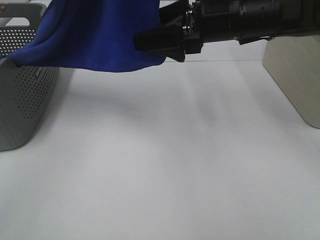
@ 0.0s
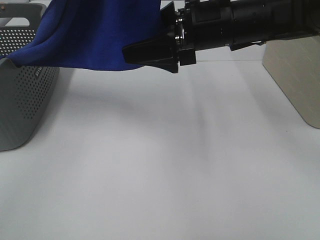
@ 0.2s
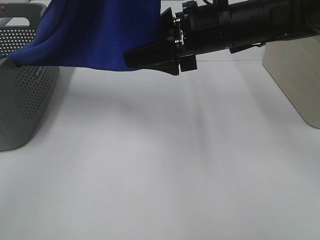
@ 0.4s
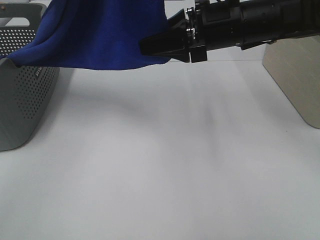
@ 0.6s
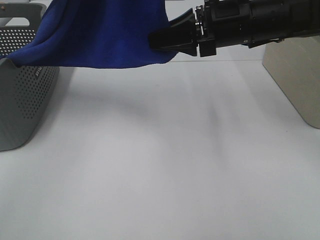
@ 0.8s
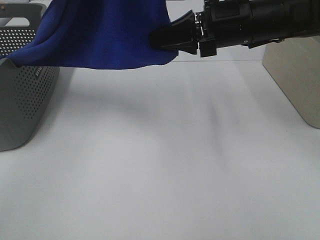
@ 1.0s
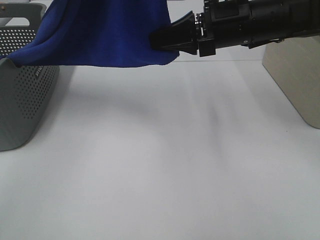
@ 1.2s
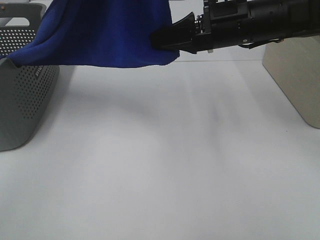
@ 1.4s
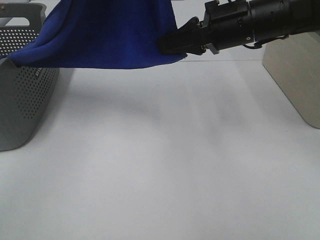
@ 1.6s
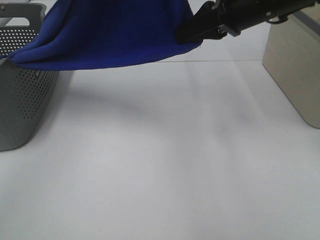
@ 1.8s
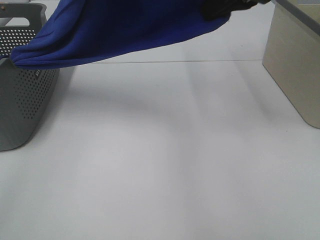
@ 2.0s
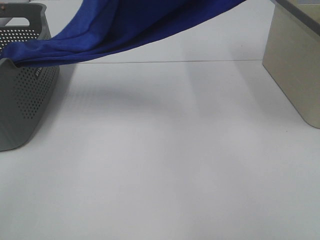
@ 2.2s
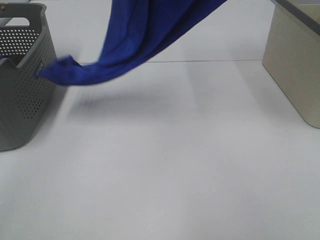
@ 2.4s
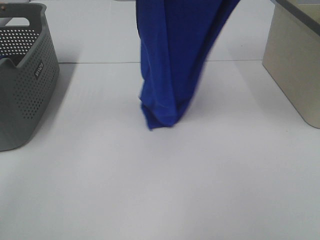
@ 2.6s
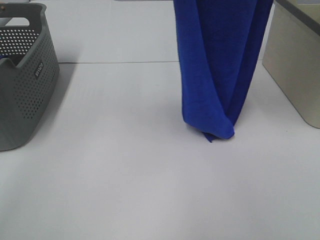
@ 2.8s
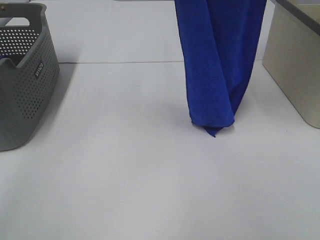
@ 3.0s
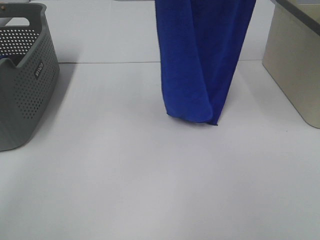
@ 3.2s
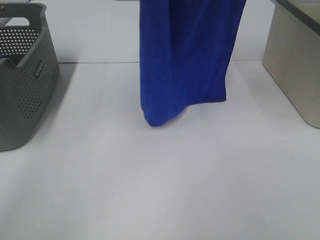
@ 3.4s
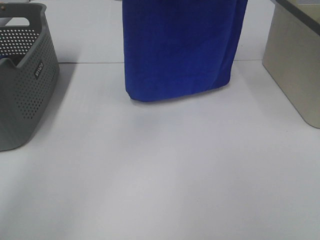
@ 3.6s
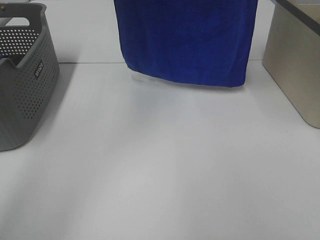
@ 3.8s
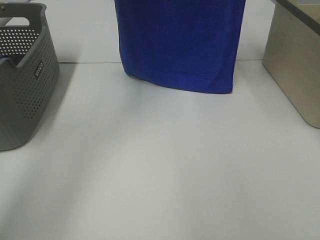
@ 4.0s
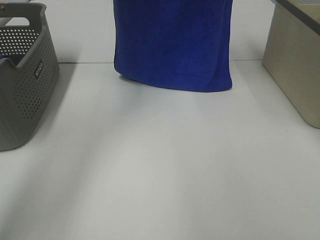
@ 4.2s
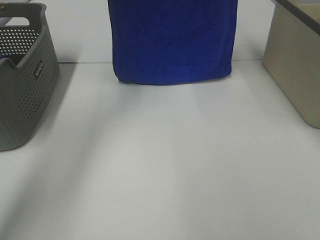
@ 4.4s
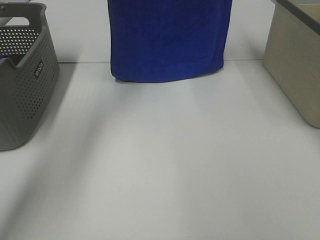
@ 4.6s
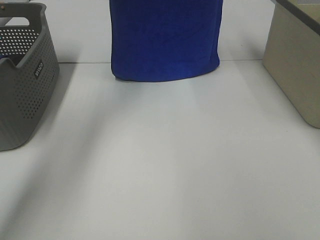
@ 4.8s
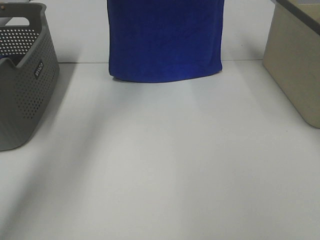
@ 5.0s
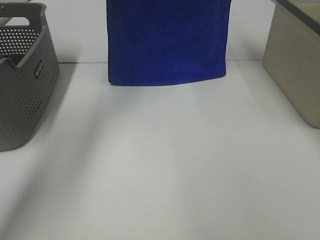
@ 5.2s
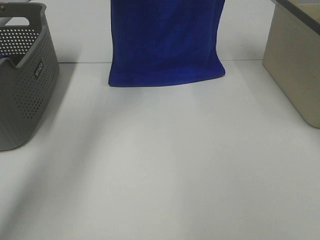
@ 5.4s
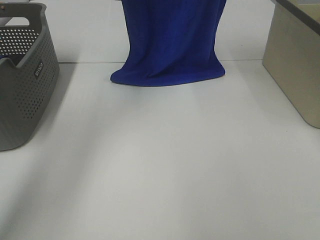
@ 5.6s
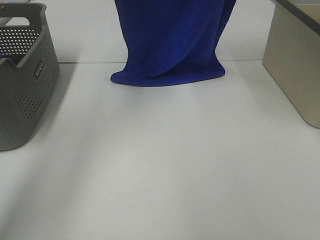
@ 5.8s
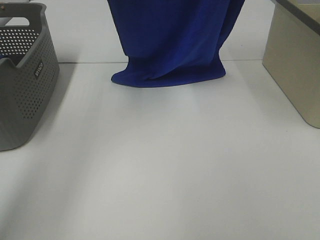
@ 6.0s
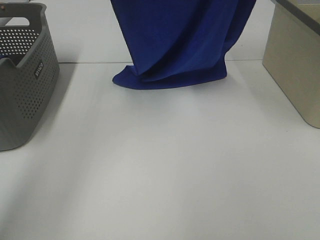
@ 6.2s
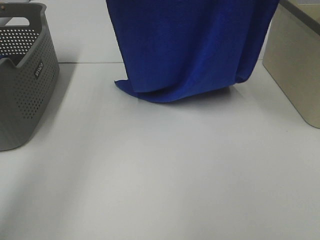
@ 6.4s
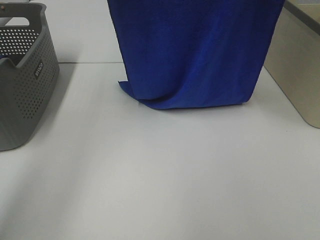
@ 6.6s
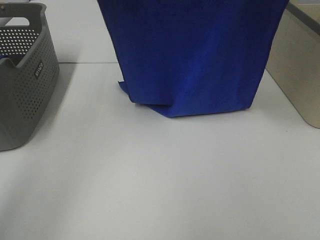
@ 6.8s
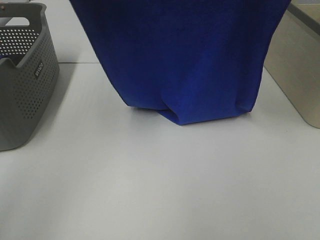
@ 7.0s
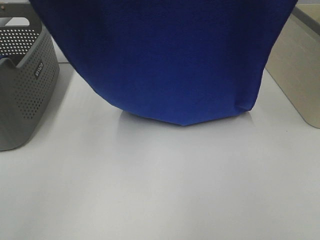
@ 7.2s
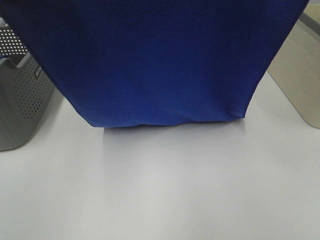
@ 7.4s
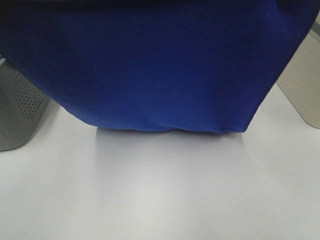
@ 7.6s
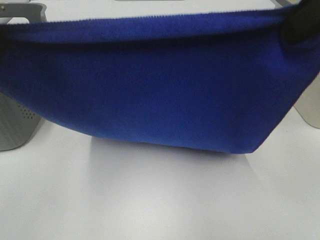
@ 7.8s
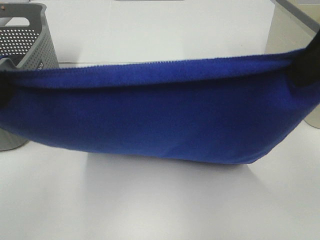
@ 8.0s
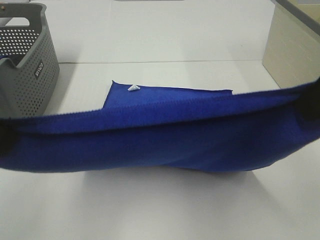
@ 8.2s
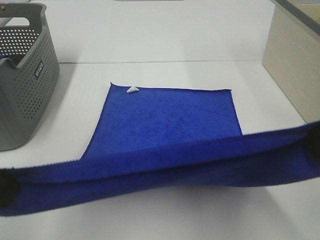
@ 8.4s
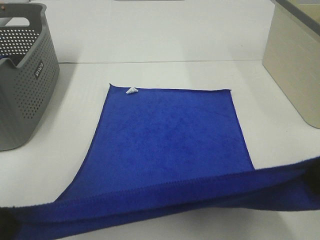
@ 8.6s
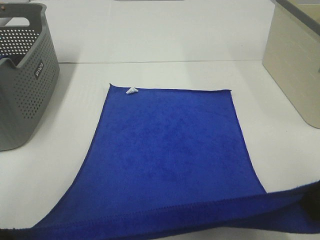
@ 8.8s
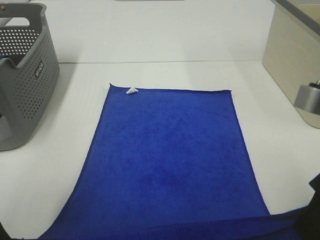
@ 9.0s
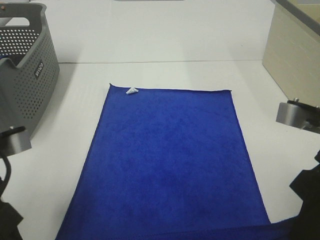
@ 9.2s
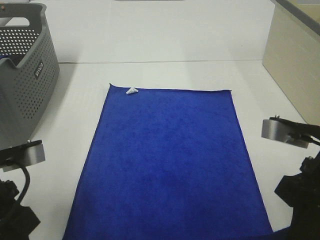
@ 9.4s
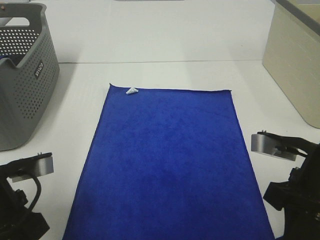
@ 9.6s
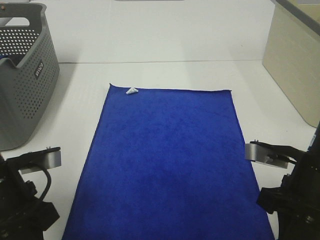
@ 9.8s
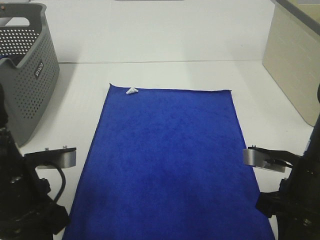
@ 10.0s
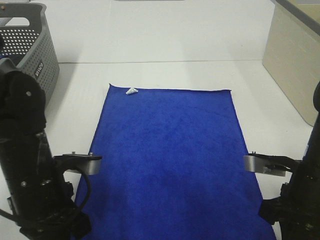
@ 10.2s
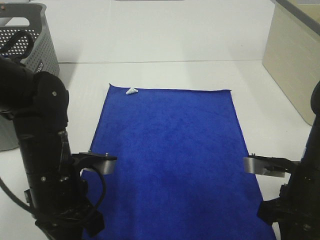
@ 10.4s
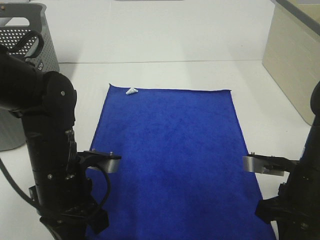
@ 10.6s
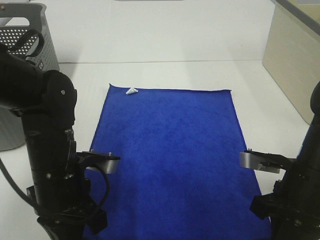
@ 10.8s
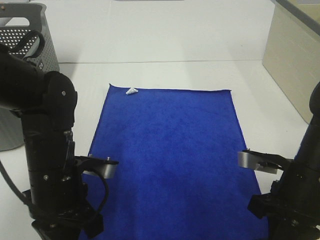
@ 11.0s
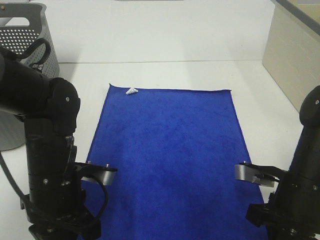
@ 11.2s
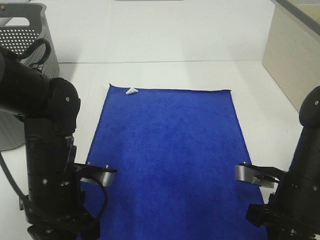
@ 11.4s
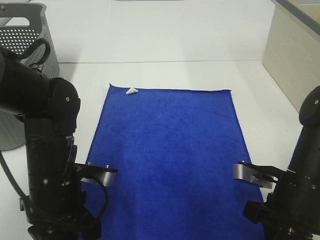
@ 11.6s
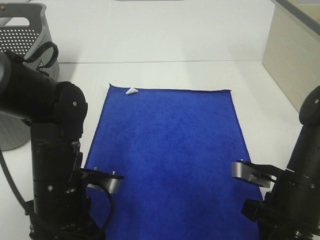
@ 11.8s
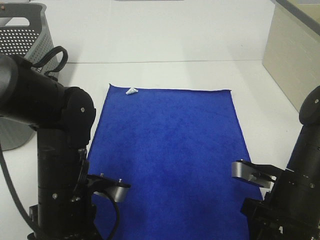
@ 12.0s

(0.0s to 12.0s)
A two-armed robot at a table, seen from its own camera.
Task of the whole recording: Remove the towel and place it.
Step, 0.8s - 7.6s: Left hand: spread the blue towel flat on the table.
Step, 0.8s - 7.6s: Right hand: spread the blue towel flat on the table.
0.0s - 1.6s: The right gripper closes its fingers.
1.6s - 3.0s: The left gripper shifts approximately 5 cm forward, while the right gripper shifts some 25 cm upward.
3.0s - 4.4s: The left gripper shifts about 15 cm forward and downward. The right gripper is displaced forward by approximately 10 cm.
4.4s - 6.0s: The grippers both shift backward by roughly 10 cm.
6.0s - 7.6s: The left gripper travels backward by roughly 20 cm, while the right gripper is displaced backward and downward by some 15 cm.
7.6s - 9.0s: Both grippers travel together downward and backward, approximately 20 cm.
9.0s - 10.4s: The right gripper moves downward, approximately 15 cm; the left gripper heads downward, forward and to the right, covering roughly 15 cm.
10.4s - 12.0s: The right gripper opens its fingers; the left gripper opens up.

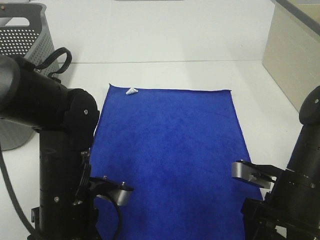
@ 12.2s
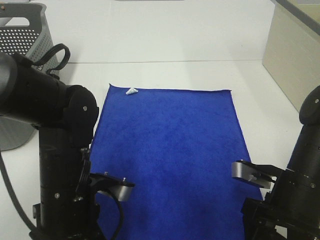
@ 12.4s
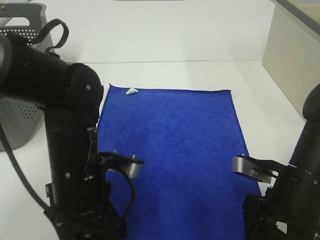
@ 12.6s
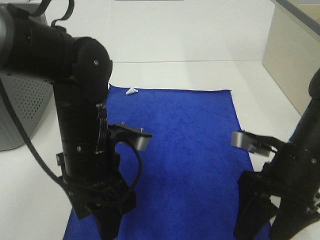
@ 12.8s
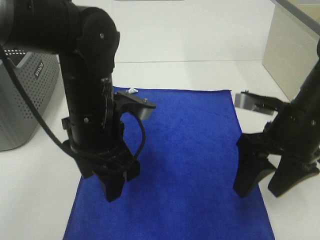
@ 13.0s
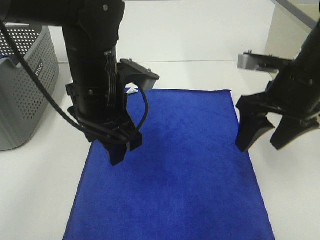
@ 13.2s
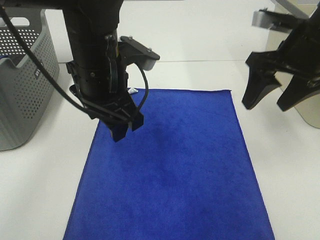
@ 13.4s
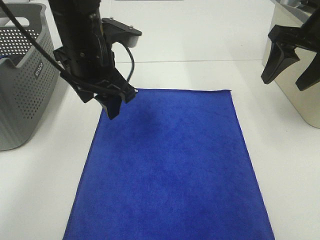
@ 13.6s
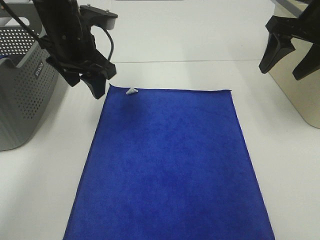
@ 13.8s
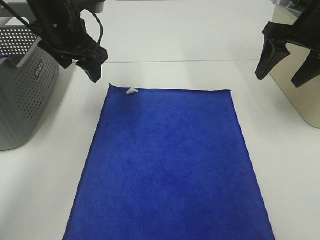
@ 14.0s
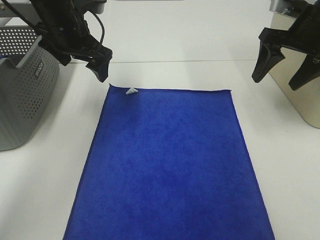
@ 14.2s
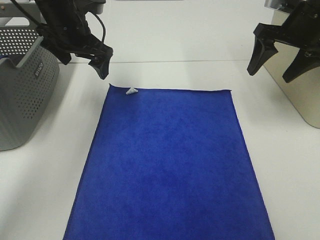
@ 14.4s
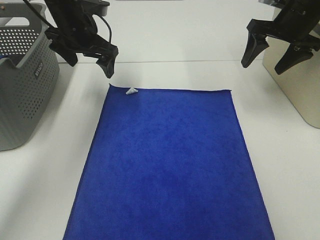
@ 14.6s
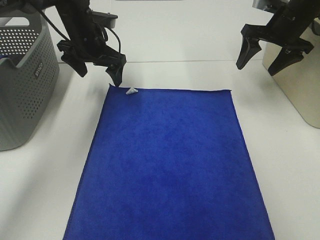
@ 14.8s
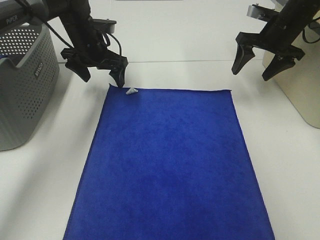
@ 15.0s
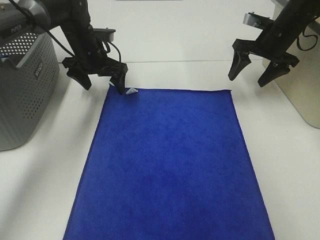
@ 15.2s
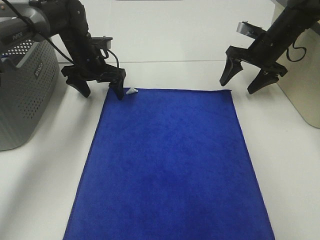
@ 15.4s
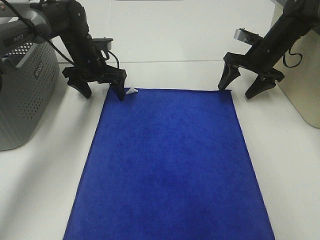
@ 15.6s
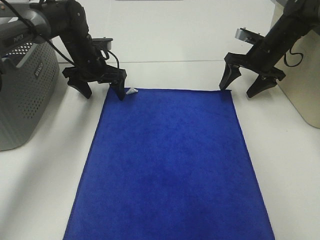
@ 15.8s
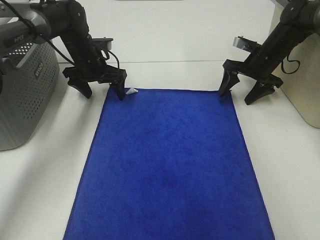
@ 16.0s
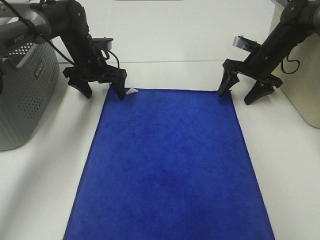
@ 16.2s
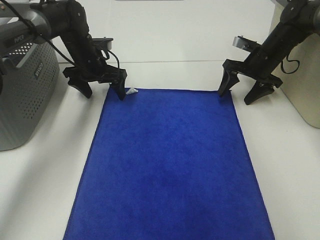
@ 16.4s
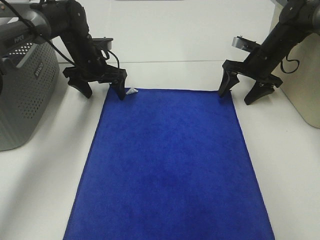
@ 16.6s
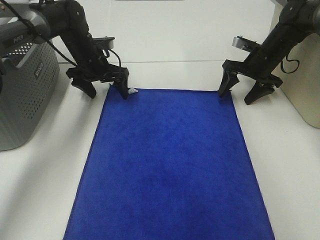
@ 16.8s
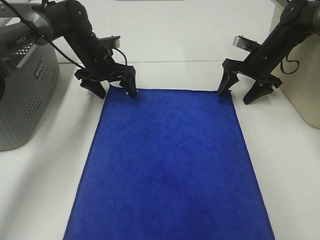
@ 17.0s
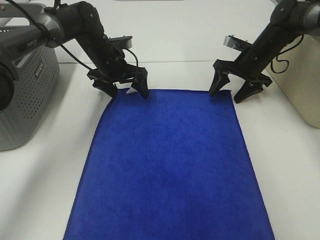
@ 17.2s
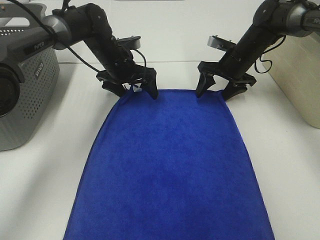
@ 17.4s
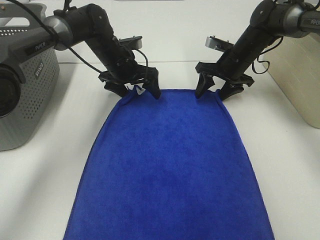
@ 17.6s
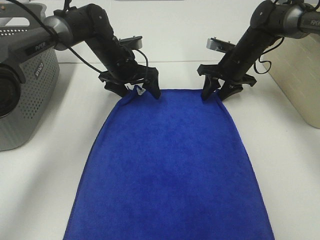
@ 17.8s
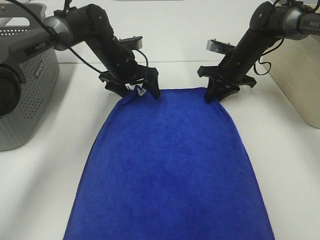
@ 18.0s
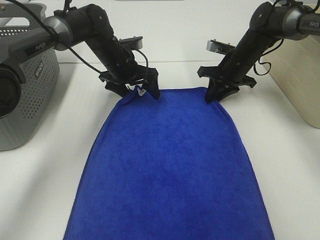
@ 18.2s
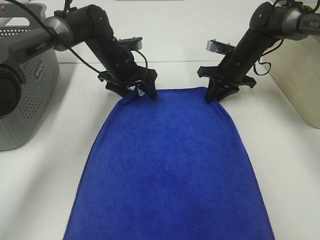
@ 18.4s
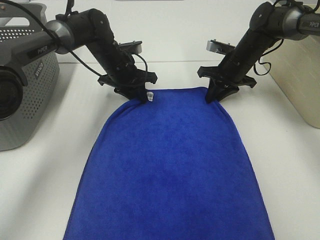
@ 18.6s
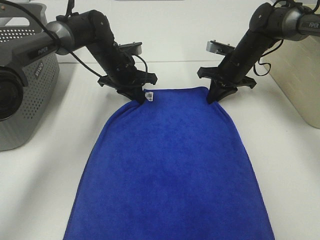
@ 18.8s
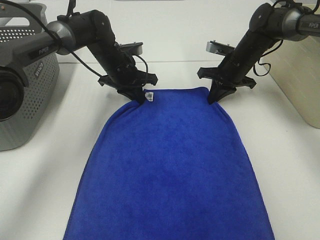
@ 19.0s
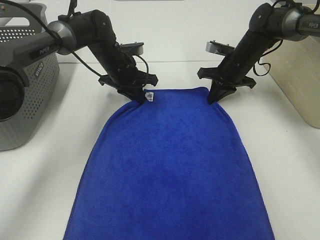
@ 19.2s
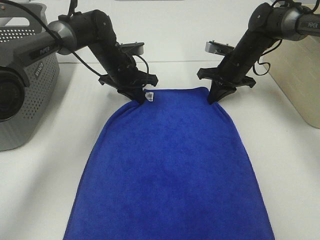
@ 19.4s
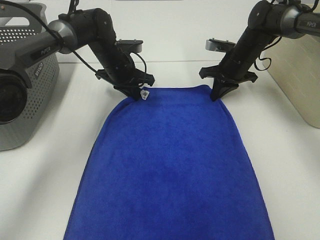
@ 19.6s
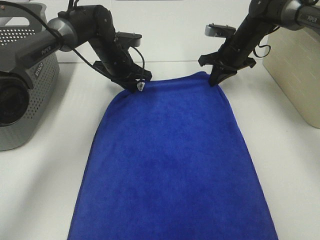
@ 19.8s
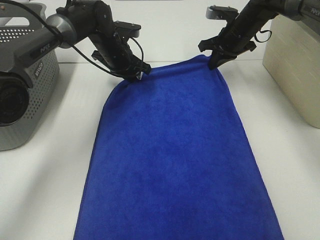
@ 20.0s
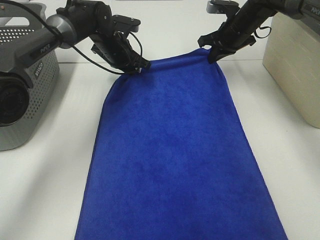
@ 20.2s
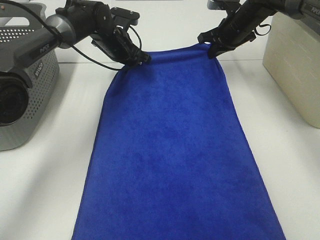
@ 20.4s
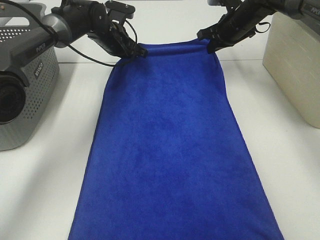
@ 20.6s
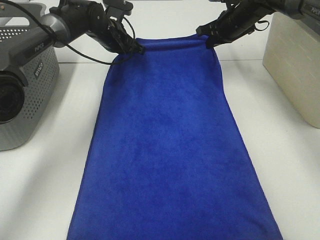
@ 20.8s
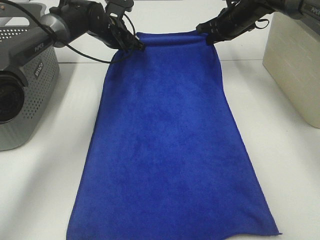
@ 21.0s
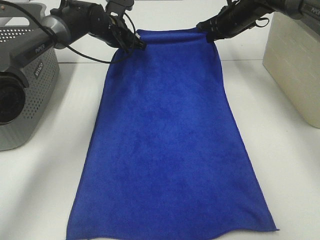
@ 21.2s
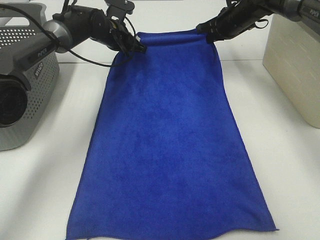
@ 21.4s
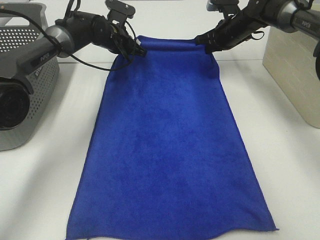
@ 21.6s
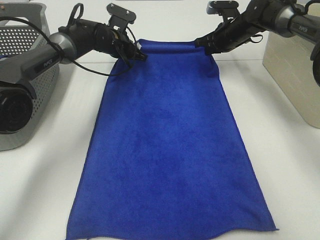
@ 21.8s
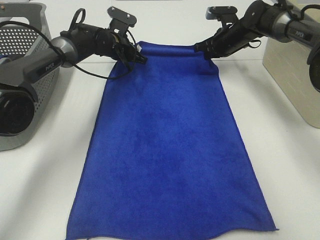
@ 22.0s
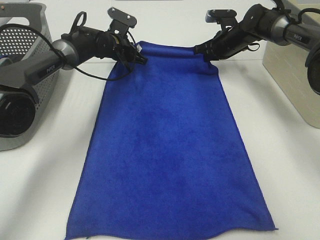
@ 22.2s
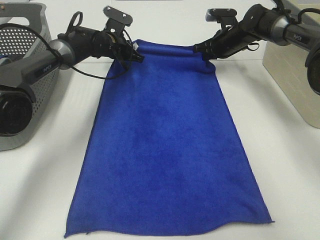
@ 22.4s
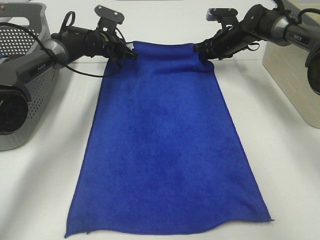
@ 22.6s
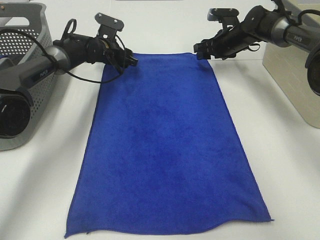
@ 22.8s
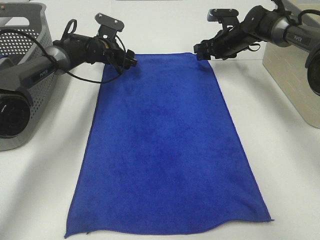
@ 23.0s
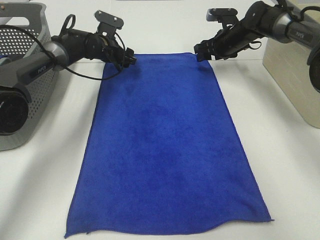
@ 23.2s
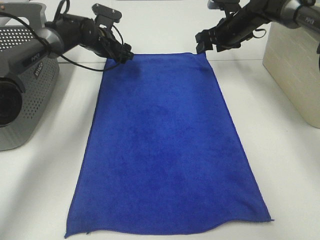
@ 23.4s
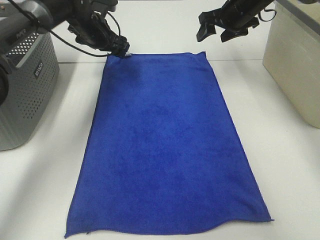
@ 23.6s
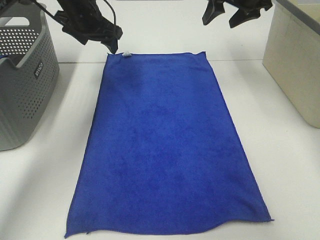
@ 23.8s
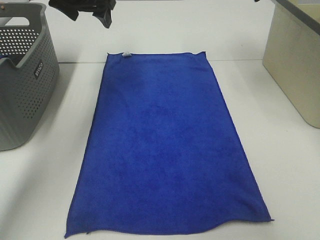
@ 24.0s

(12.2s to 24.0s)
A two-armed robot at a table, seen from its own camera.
Task of the whole recording: Remove the towel and place it.
Step, 12.2s - 16.4s: Left hand:adjust the blue towel.
Step, 12.2s - 16.4s: Right hand:adjust the blue towel.
12.2s - 13.6s: The left gripper is displaced forward and upward by some 20 cm. The right gripper is displaced upward and forward by some 25 cm.
13.6s - 15.2s: The two grippers go approximately 20 cm forward and downward.
15.2s - 16.6s: The right gripper heads downward, covering roughly 5 cm.
16.6s - 18.2s: The right gripper is displaced to the left by roughly 5 cm, and closes its fingers; the left gripper shifts some 5 cm to the right.
18.2s - 19.6s: The left gripper closes up.
19.6s - 21.0s: The left gripper moves forward, some 5 cm; the right gripper heads upward and forward, covering roughly 10 cm.
21.0s - 22.6s: The grippers both shift downward by about 5 cm. The right gripper opens its fingers.
22.6s - 24.0s: Both grippers travel together upward and backward, approximately 25 cm. The left gripper opens its fingers.
